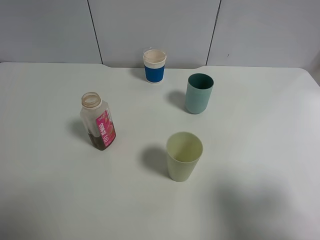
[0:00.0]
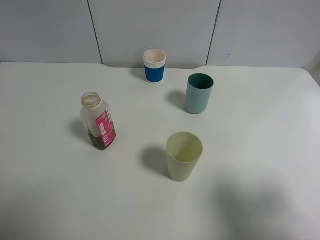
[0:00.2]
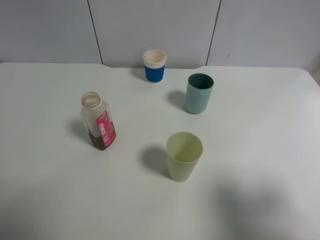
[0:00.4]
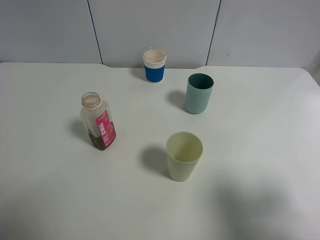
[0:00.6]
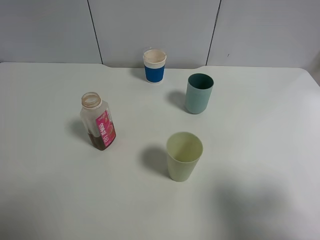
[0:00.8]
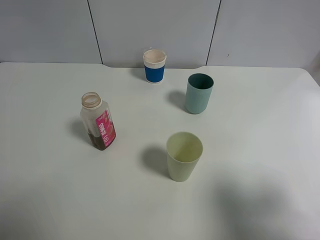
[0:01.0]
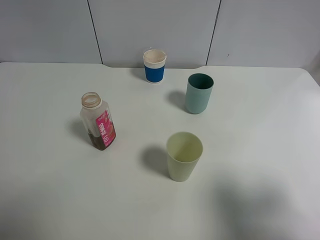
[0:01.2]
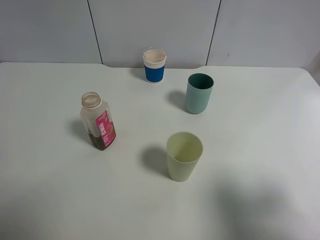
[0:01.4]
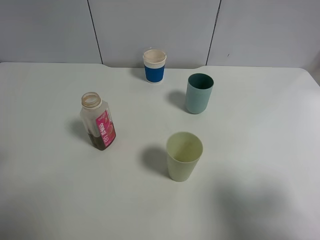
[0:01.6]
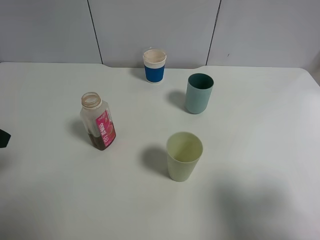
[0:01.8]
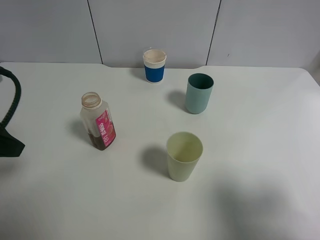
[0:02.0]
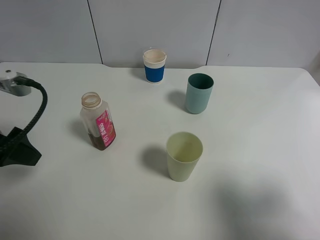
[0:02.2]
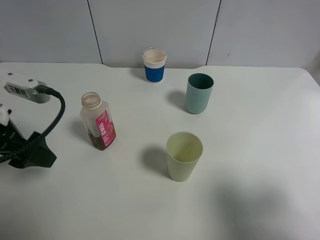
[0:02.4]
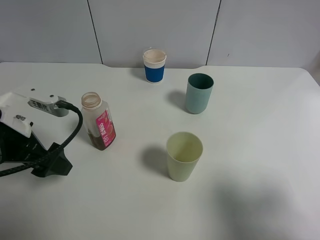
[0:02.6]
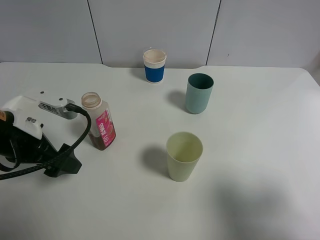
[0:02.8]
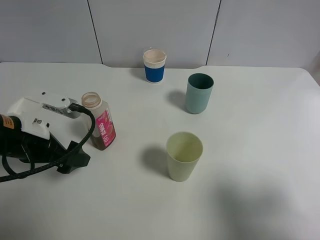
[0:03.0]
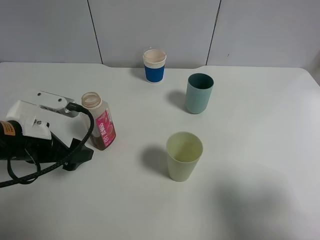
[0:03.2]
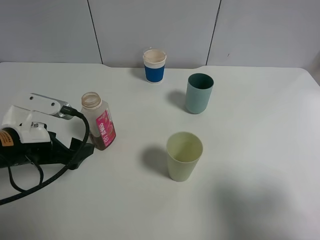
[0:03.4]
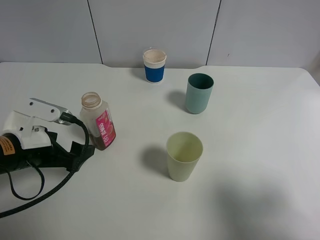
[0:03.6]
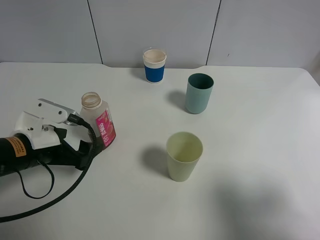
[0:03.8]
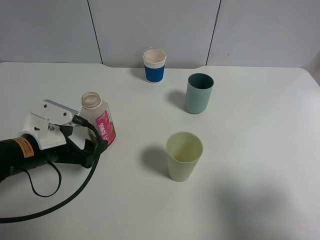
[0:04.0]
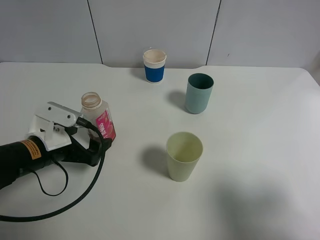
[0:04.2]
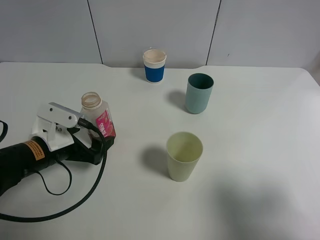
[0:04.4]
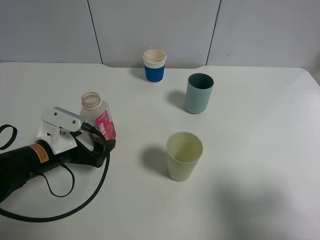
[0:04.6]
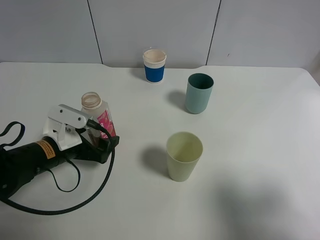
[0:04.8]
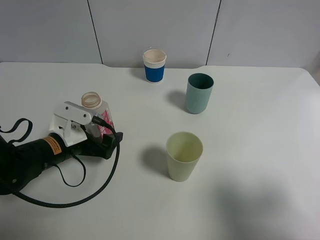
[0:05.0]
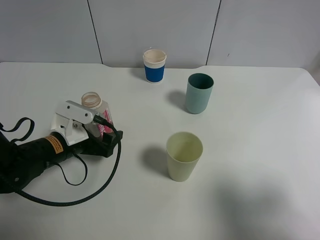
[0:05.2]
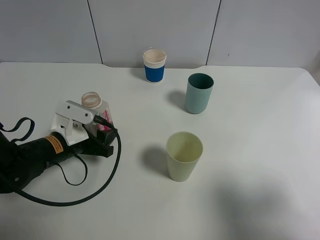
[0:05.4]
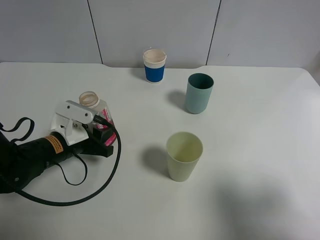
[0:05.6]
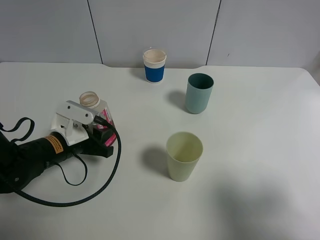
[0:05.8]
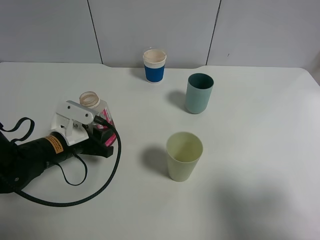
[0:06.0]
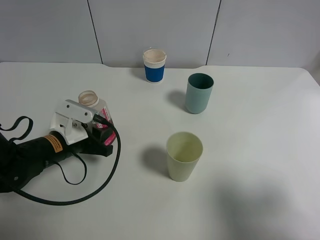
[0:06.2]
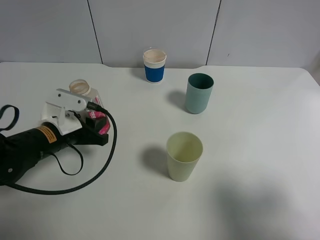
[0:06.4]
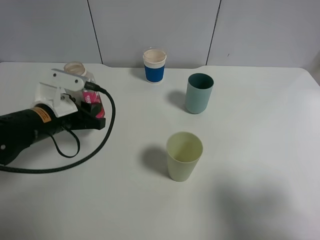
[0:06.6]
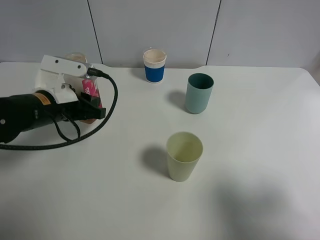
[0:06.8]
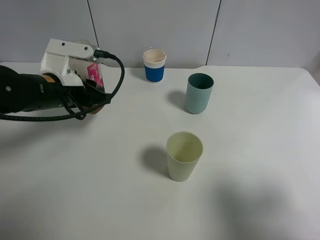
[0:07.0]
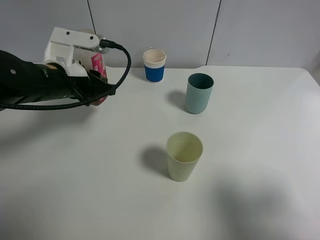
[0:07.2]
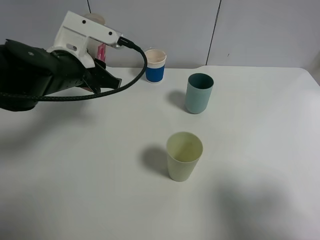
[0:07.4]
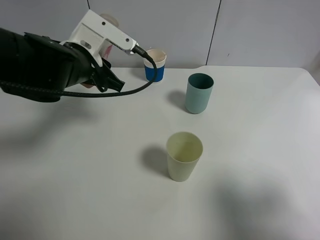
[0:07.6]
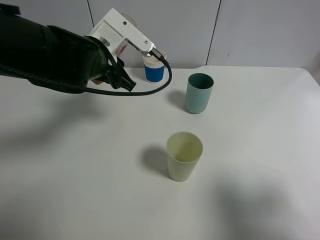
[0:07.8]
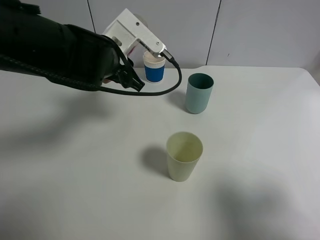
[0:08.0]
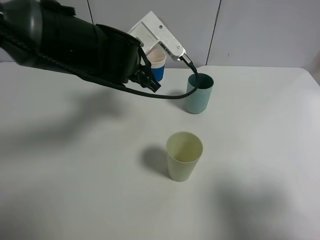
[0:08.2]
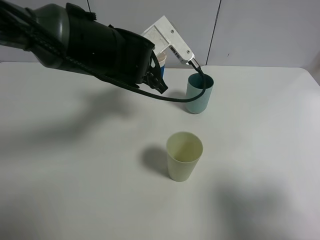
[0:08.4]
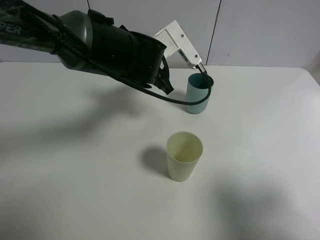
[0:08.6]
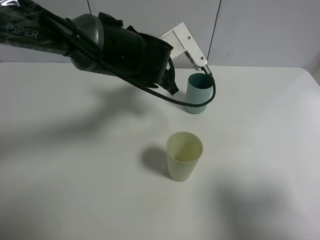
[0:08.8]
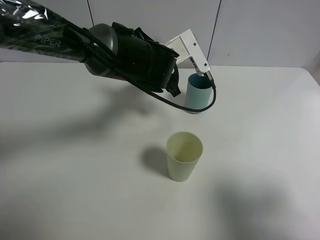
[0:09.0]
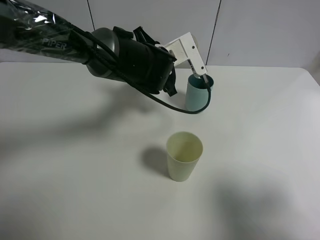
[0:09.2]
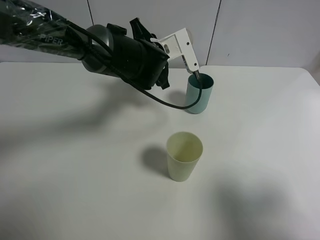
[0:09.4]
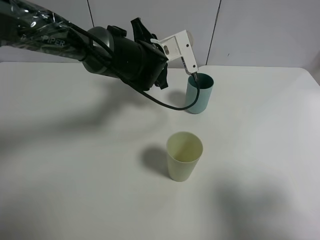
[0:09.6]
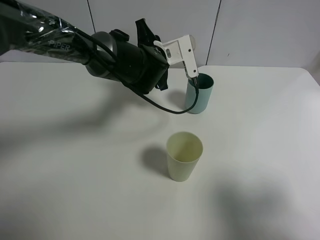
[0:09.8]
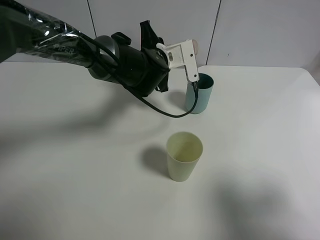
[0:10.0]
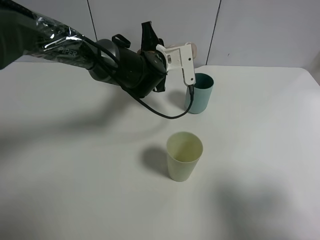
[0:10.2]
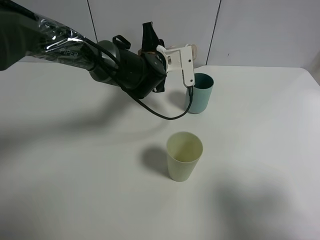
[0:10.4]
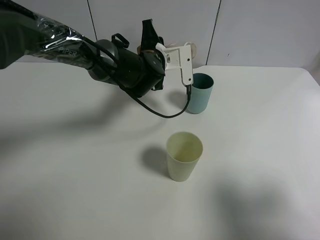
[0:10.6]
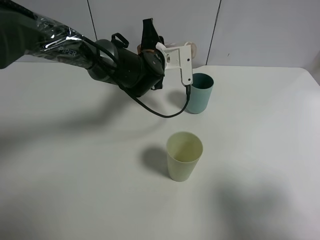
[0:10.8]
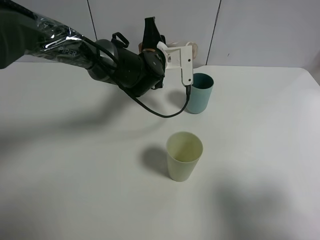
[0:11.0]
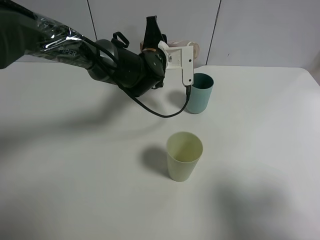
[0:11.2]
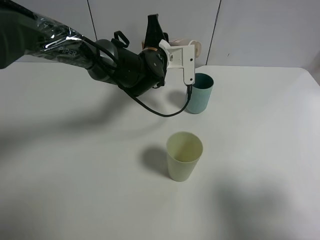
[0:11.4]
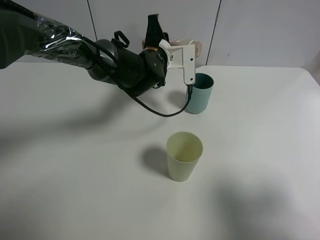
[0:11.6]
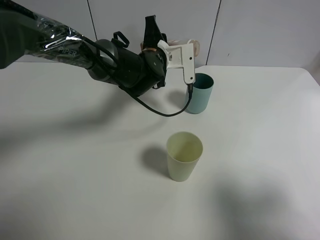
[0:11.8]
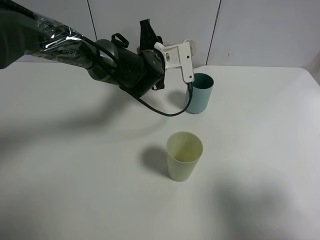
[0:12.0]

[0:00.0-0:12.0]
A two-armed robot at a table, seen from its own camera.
Task of the whole recording: use a clamp to hold the bottle of the drink, pour the beverage into a random cup, then clamp the cup containing the drink and pour the drink into another random cup.
Step, 0:00.0 to 0:06.2: Pick up the drink bottle with left gripper.
0:01.6 to 0:03.0: The left gripper goes approximately 15 cm downward, to the right and forward.
0:03.0 to 0:04.4: The left gripper is displaced downward by roughly 5 cm.
0:04.4 to 0:06.0: The left gripper closes up.
0:06.0 to 0:07.6: The left gripper is displaced upward and forward by some 15 cm.
0:07.6 to 0:09.0: The left gripper goes approximately 15 cm to the right and forward.
0:10.4 to 0:12.0: There are only small adjustments of the grippers.

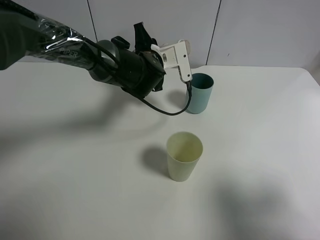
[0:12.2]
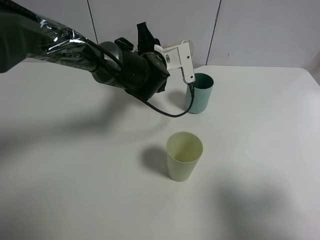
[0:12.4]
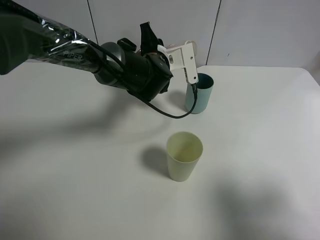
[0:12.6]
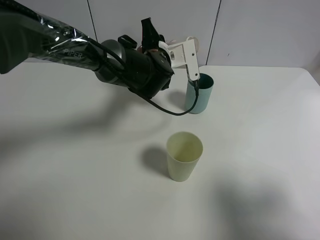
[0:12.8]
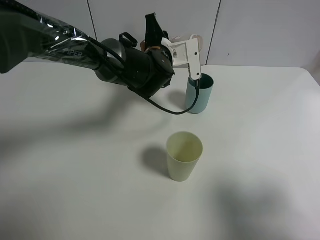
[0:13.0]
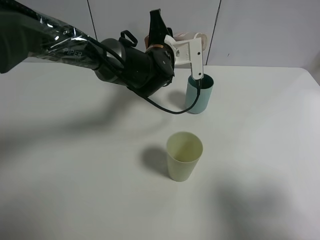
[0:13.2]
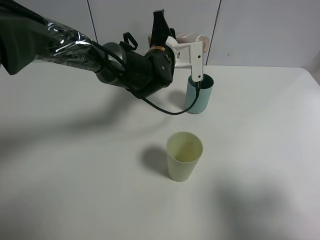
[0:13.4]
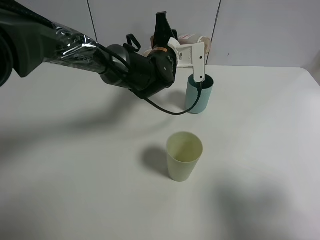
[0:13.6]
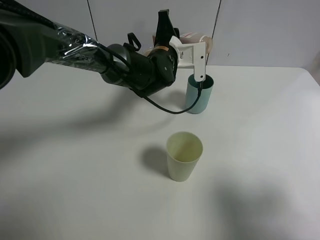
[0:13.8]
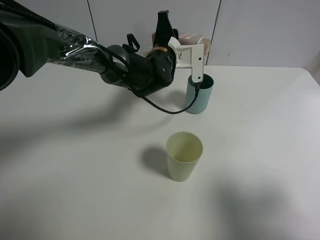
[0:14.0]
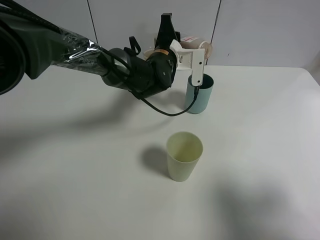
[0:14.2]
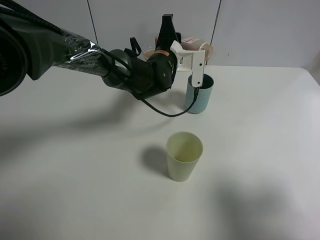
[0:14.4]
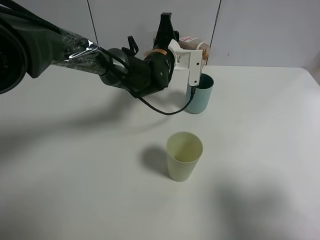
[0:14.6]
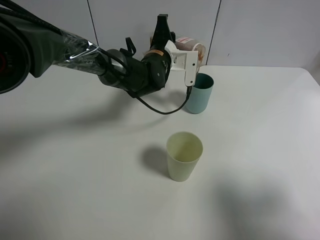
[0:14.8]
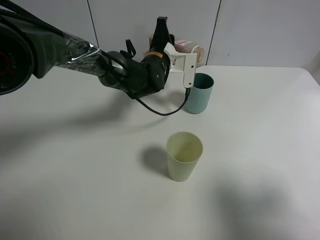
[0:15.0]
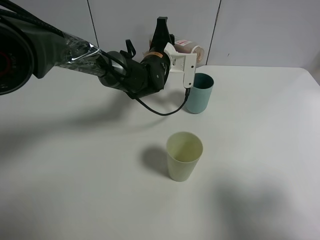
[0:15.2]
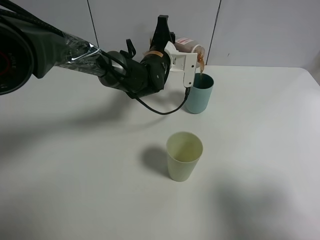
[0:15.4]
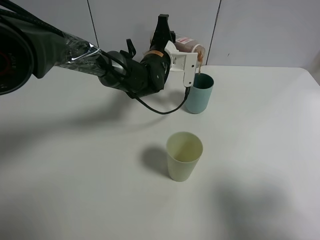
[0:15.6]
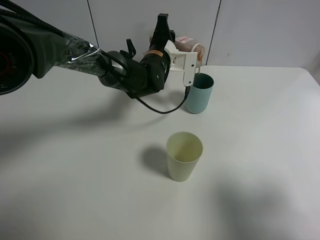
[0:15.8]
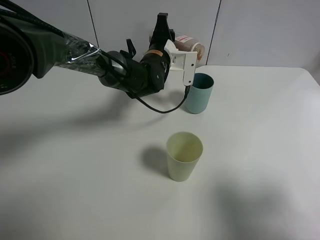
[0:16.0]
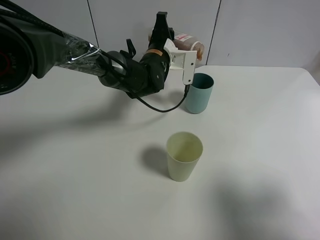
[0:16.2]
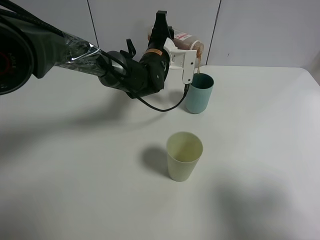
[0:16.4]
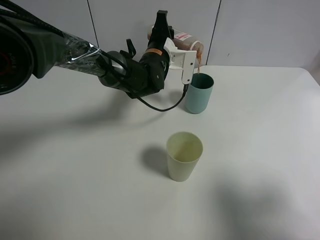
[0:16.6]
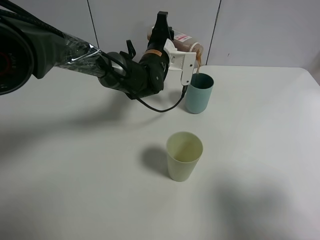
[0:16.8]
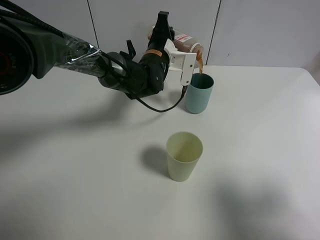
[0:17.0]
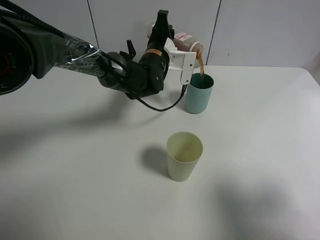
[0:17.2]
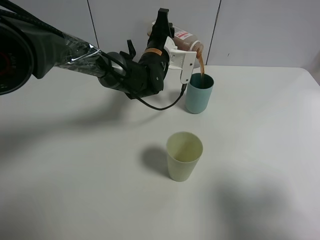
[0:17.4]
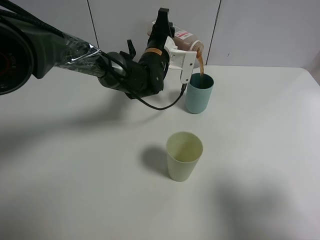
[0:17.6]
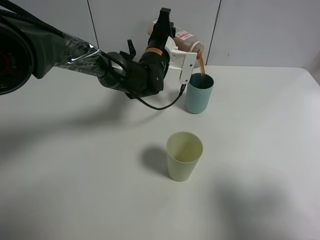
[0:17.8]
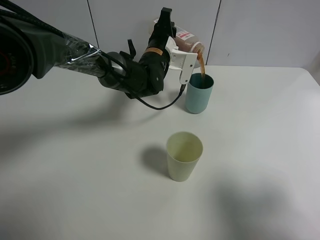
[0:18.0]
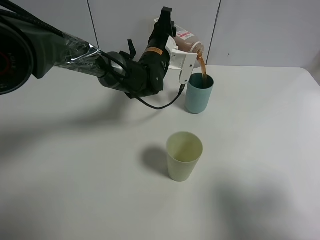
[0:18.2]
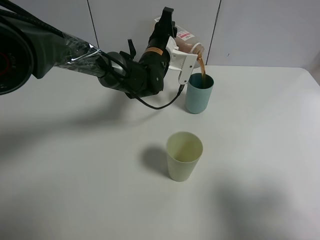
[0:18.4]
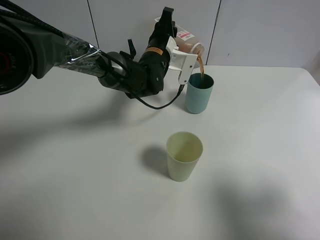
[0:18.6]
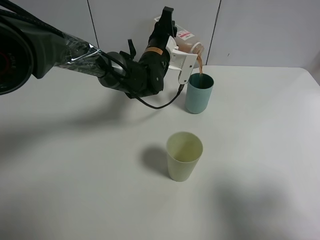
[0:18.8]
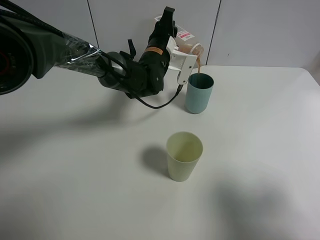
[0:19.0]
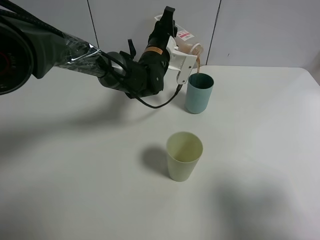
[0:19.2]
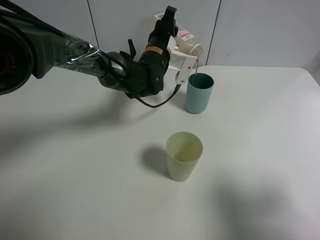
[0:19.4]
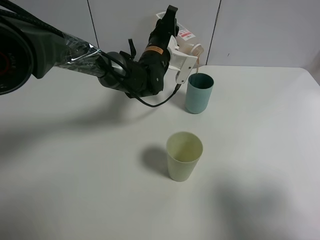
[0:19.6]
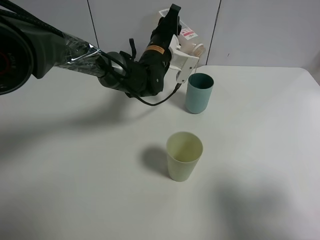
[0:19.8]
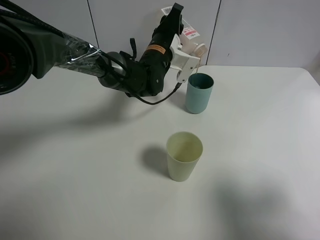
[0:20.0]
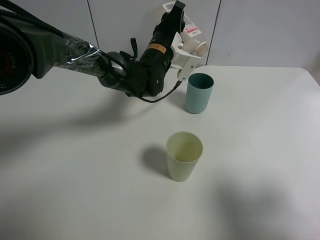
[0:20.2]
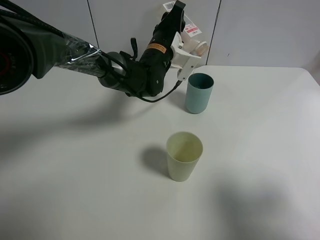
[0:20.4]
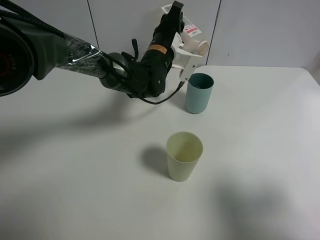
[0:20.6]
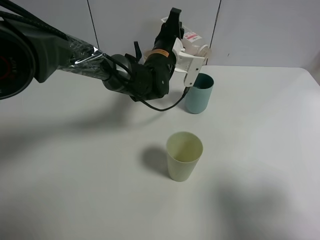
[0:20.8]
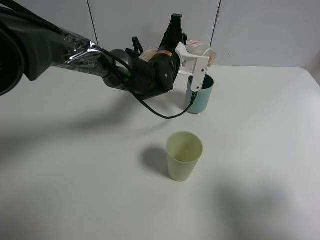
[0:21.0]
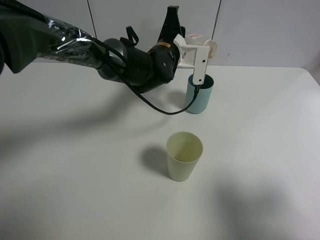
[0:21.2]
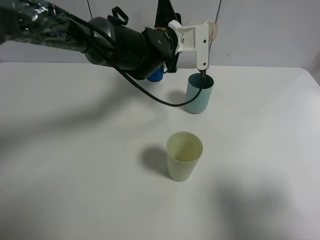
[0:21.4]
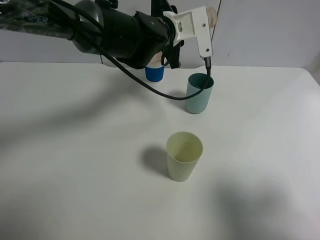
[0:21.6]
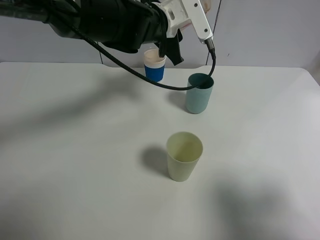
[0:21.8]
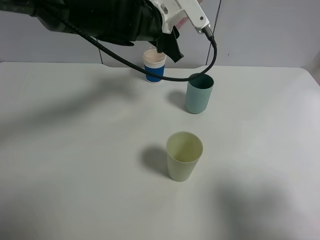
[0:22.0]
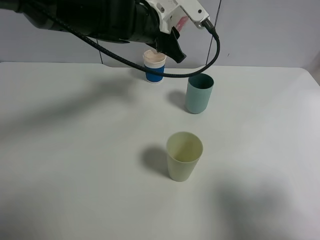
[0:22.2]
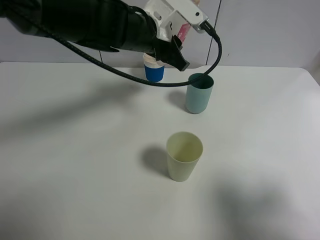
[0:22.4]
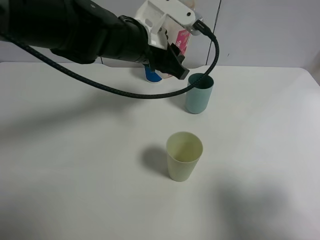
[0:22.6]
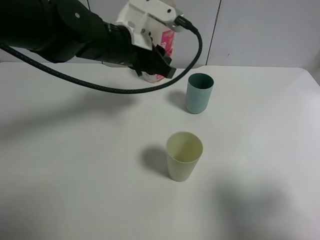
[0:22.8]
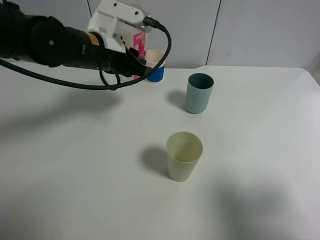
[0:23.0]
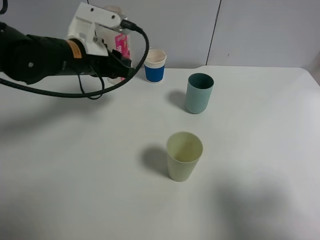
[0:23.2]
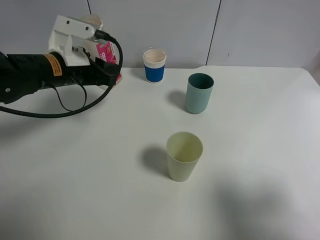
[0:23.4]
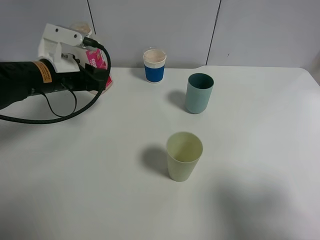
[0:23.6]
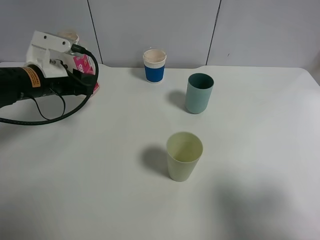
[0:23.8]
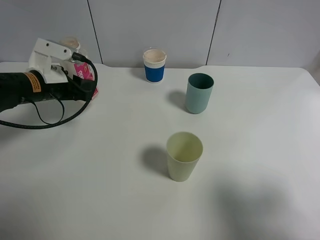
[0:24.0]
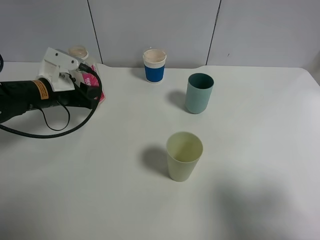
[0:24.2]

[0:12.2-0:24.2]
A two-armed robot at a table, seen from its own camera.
Task of the whole recording: use a clamp to hold the bottle of the drink, pour the beverage into a random cup, then clamp the cup containing the drink and pour the drink into another random cup.
Step, 0:12.2 to 0:20.8: Pour the drink into the blue plastic cup with left gripper.
0:12.2 to 0:13.8: The grippers move only a little.
0:13.8 to 0:16.6: The grippers stay close to where they were, moving slightly.
0:16.6 to 0:19.8: The grippers stay close to where they were, moving slightly.
0:21.2 to 0:22.6: The left gripper is displaced backward, to the left and upward by roughly 10 cm.
0:22.6 to 0:24.2: The left gripper is displaced to the left and downward by about 20 cm.
